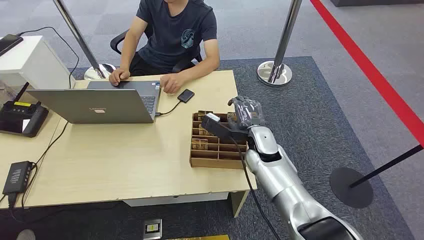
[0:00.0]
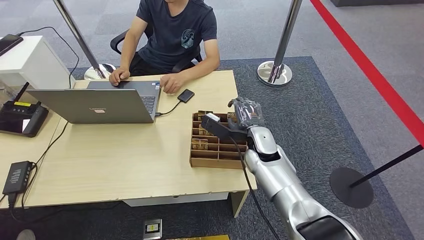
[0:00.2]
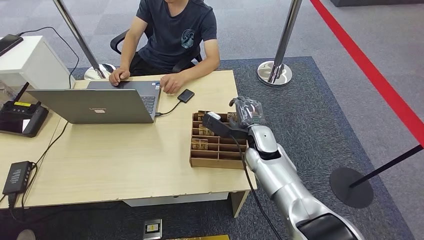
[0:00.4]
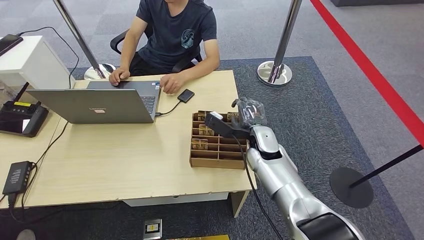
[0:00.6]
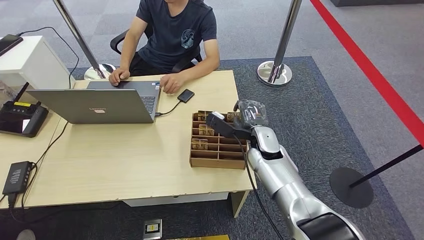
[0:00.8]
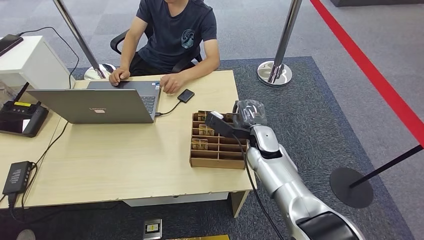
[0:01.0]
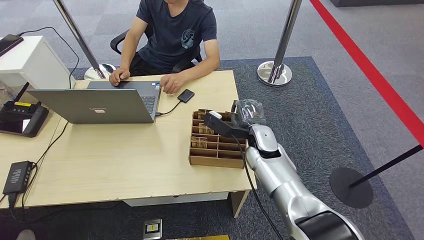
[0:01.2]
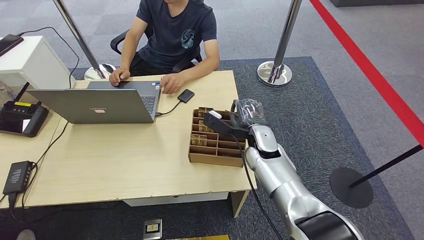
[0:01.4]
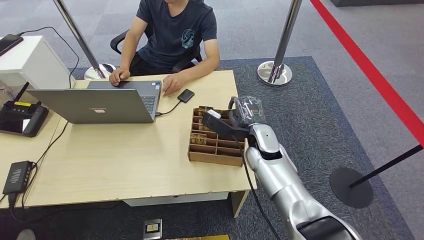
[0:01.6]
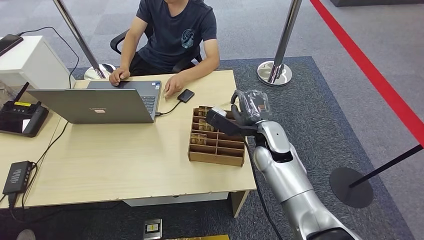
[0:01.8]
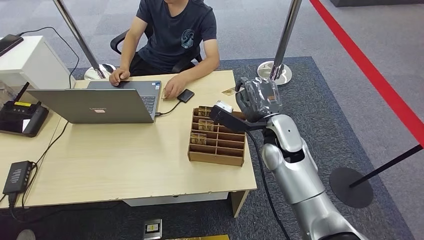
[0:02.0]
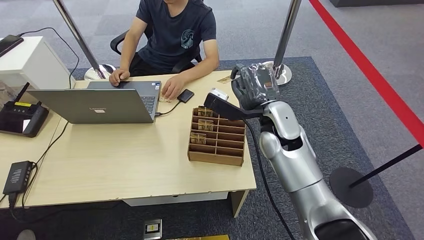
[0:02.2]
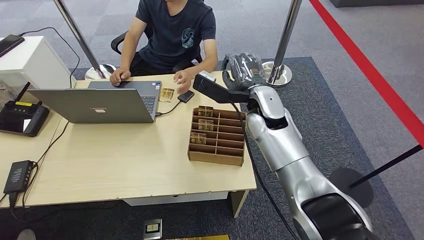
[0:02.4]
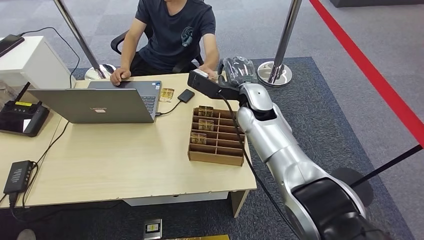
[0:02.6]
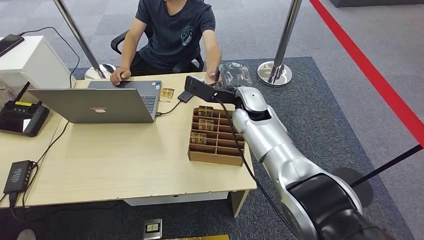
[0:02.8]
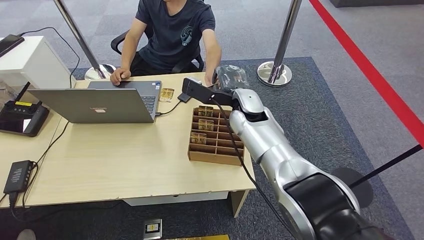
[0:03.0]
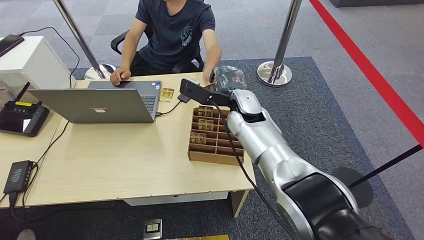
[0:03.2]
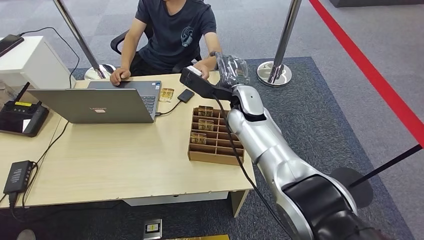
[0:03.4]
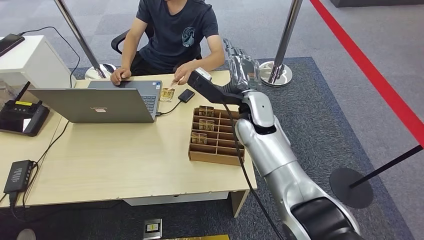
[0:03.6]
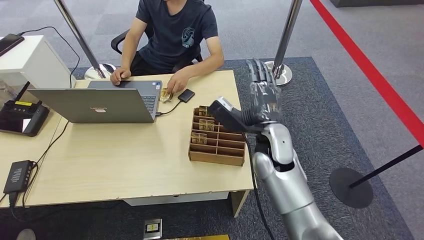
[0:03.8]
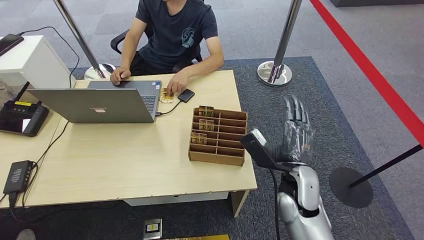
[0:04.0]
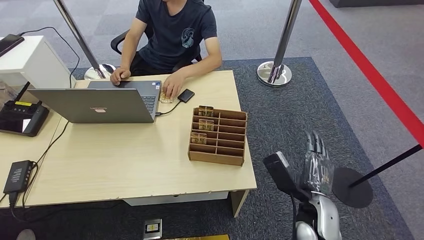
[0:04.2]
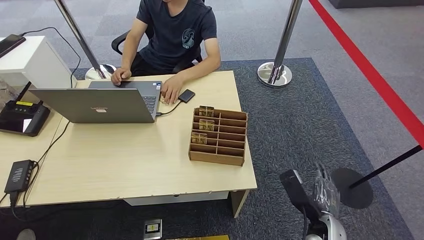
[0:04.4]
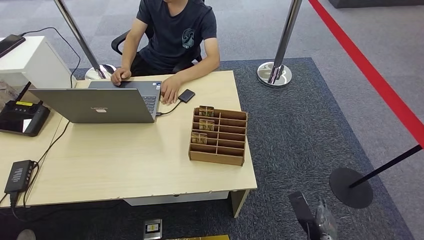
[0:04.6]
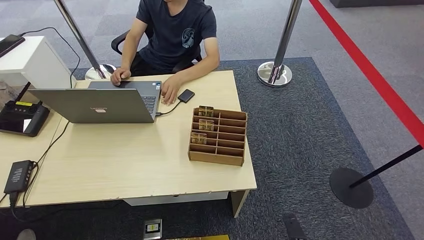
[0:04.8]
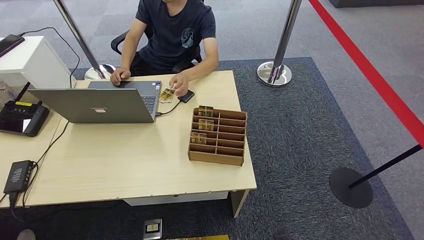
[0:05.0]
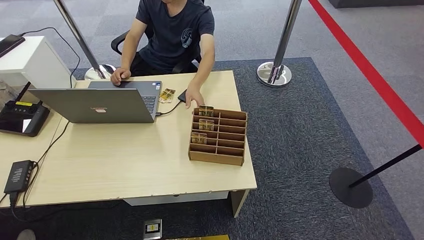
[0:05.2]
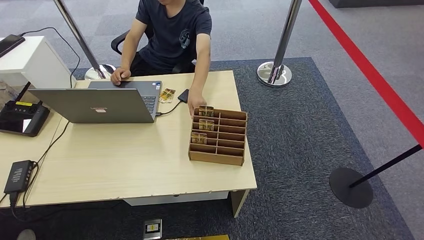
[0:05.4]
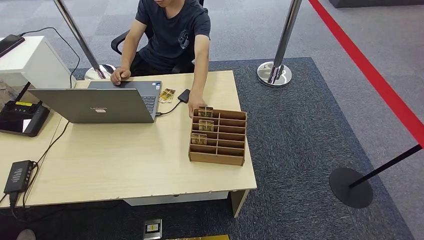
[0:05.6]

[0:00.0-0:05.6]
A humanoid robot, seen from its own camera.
Step, 0:00.0 to 0:02.0: Pick up the room card from the card holder.
Step, 0:02.2 to 0:05.6: Hand the room card to the target.
0:01.4 to 0:02.8: The right hand is displaced upward and forward by roughly 10 cm.
0:02.8 to 0:04.2: The right hand travels backward, downward and to the right by roughly 40 cm.
0:04.2 to 0:05.6: The right hand is displaced downward and backward by approximately 15 cm.
